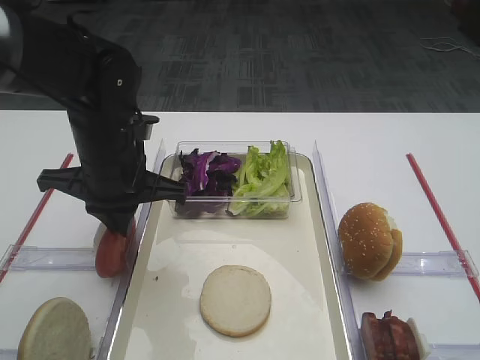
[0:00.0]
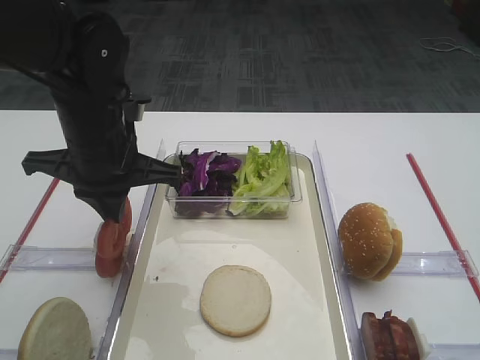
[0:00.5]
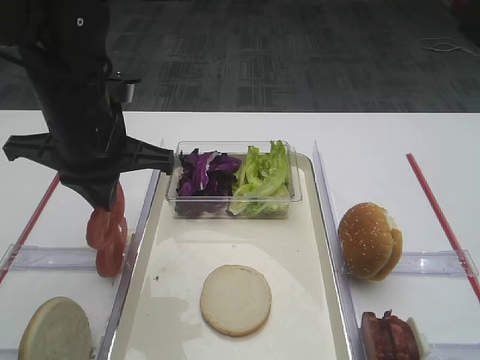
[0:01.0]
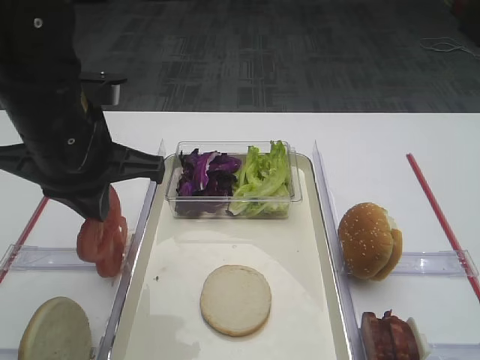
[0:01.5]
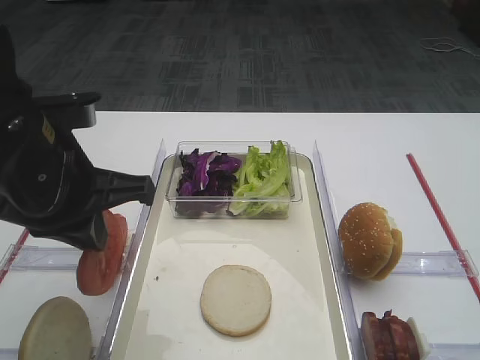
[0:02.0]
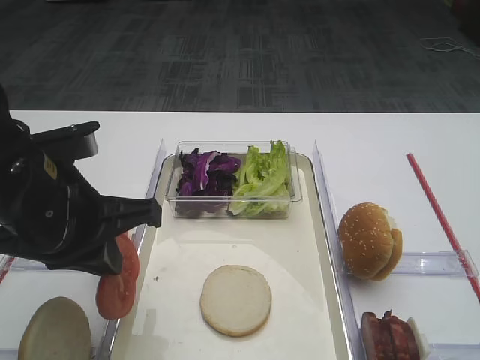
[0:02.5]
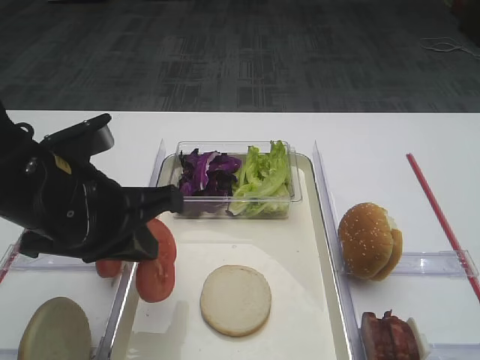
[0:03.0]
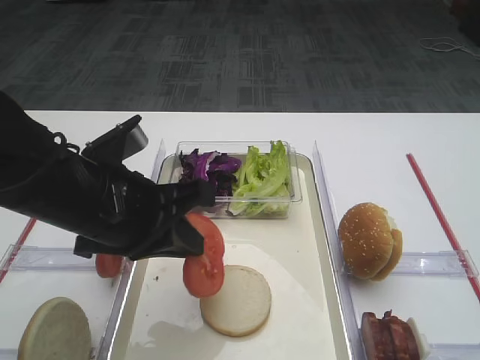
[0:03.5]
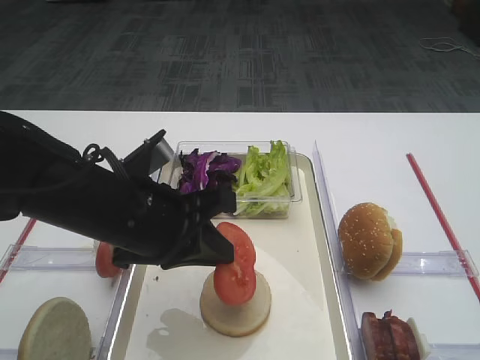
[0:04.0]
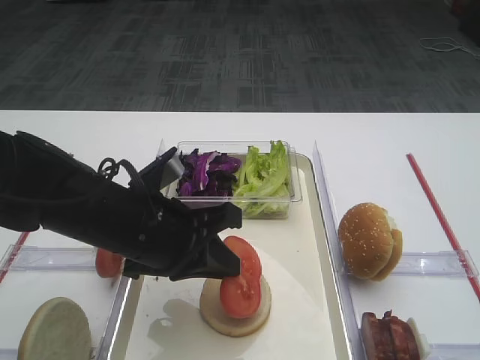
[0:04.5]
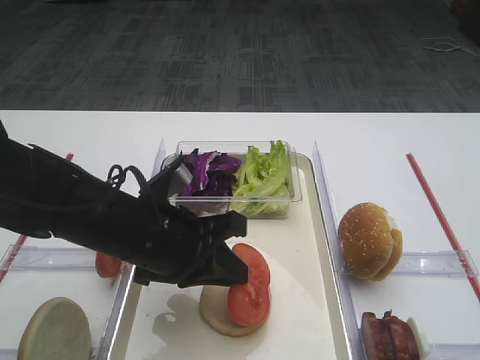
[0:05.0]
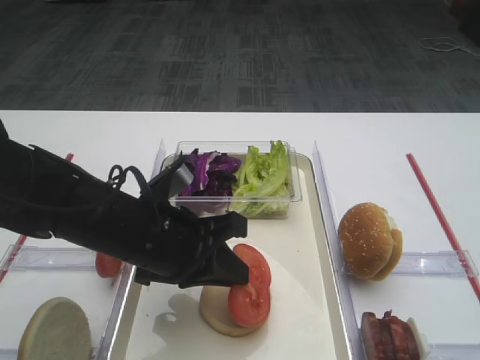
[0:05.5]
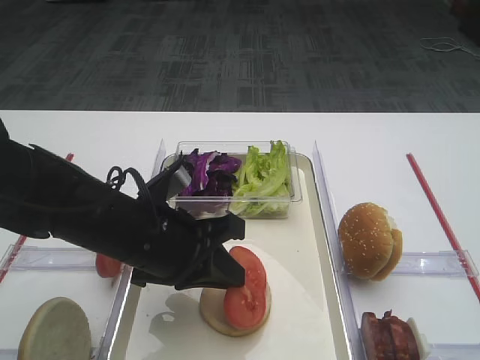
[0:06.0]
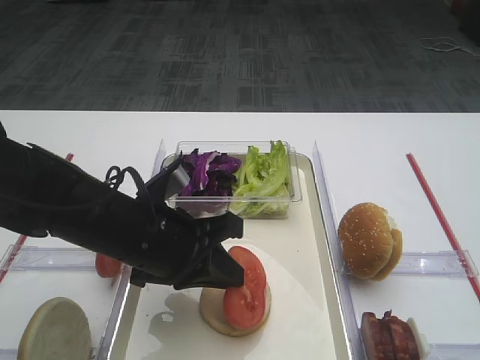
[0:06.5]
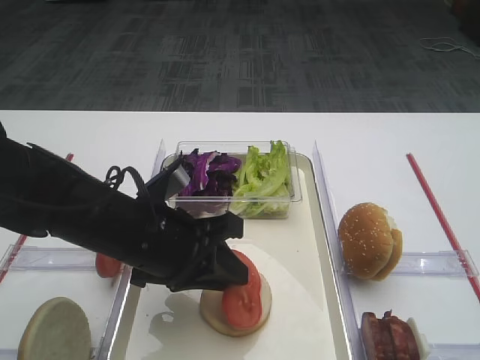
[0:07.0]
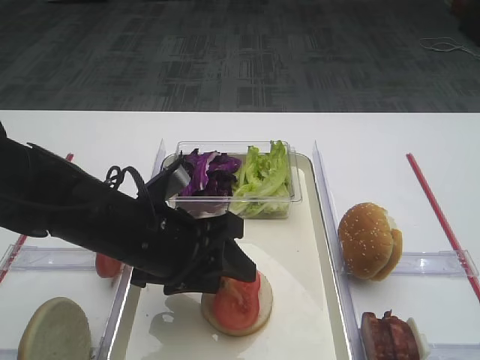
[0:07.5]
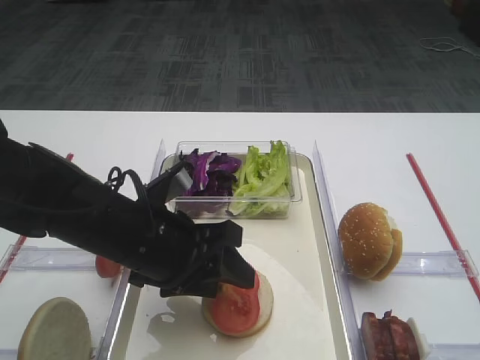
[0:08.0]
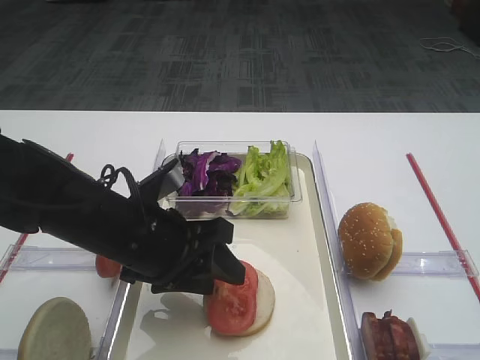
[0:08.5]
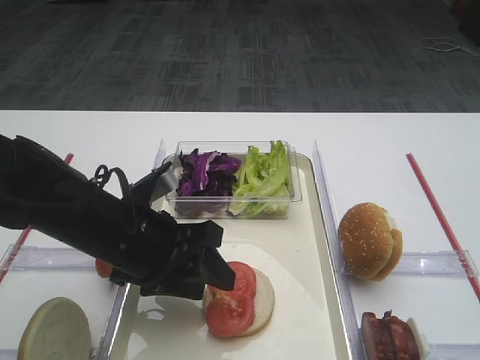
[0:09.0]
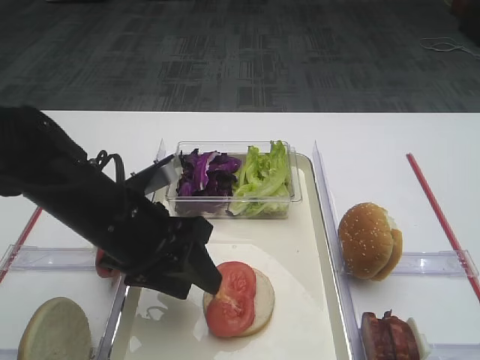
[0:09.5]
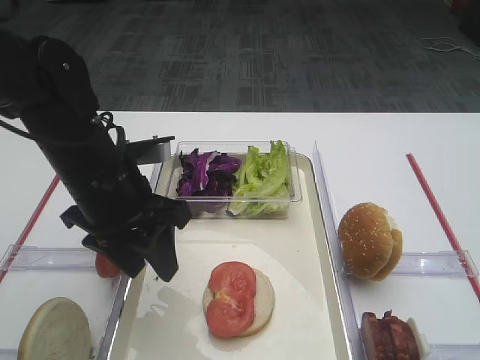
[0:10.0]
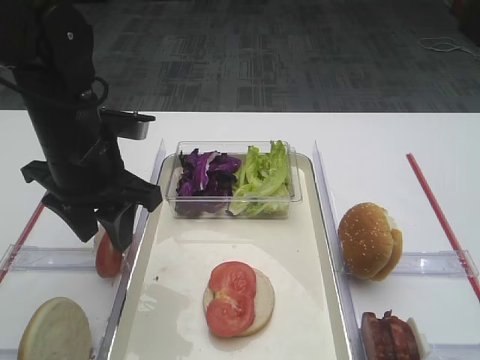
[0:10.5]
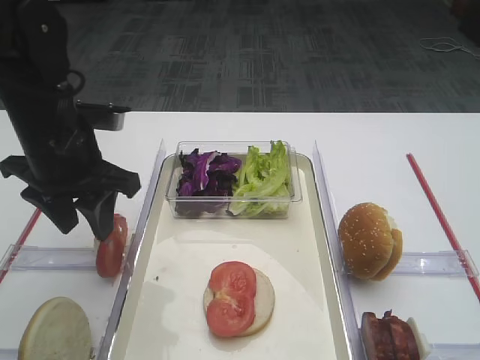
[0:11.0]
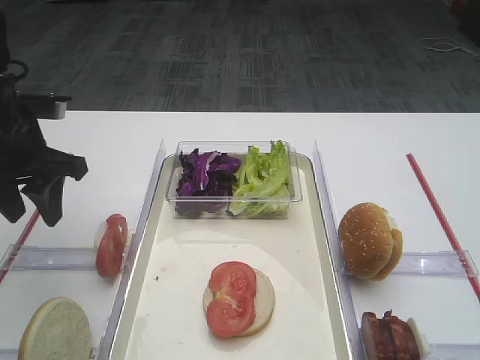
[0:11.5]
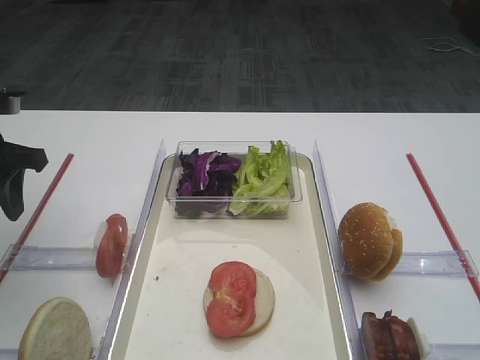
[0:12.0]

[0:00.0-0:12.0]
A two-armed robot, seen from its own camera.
Step, 0:01.5 to 0:09.5: Place the tomato slice on the bread slice with the left gripper.
0:00.0 to 0:02.0: The left gripper moves backward and upward, roughly 10 cm.
0:02.0 to 0:04.0: The left gripper goes about 10 cm downward and to the right.
0:04.0 to 0:06.0: There are only small adjustments of the grippers.
0:06.0 to 0:08.0: The left gripper opens up.
0:08.0 to 0:10.0: The left gripper shifts by approximately 10 cm.
0:10.0 to 0:12.0: The left gripper heads to the left, covering roughly 15 cm.

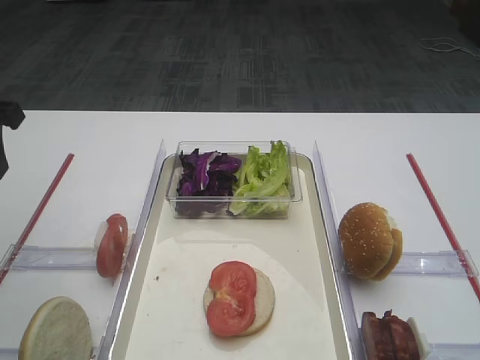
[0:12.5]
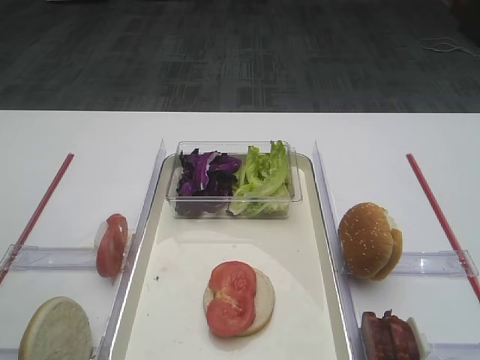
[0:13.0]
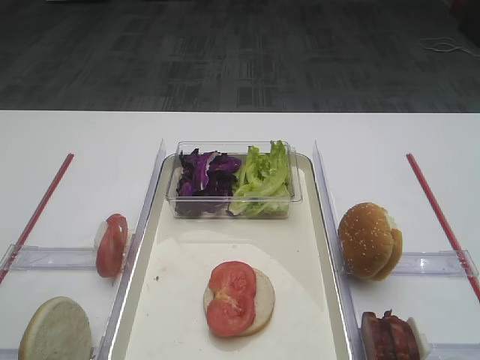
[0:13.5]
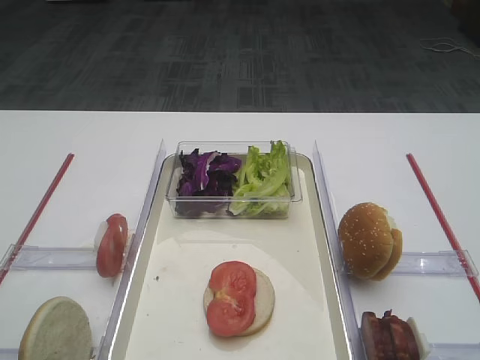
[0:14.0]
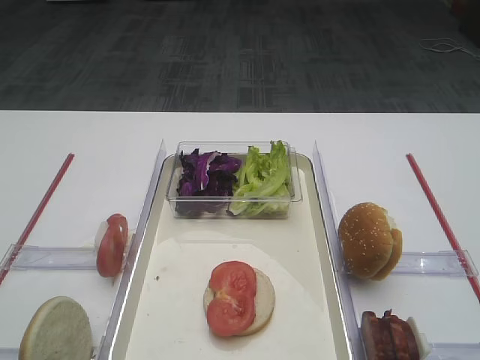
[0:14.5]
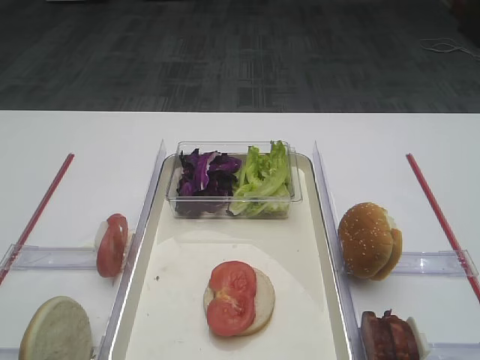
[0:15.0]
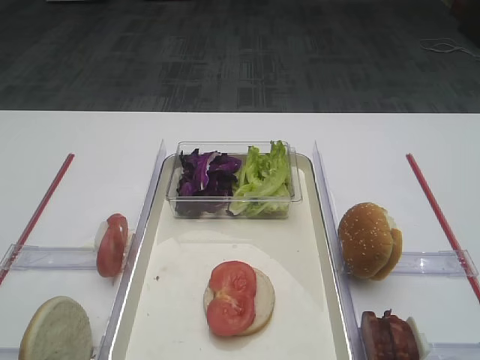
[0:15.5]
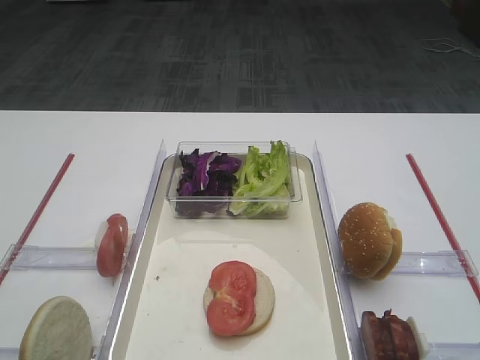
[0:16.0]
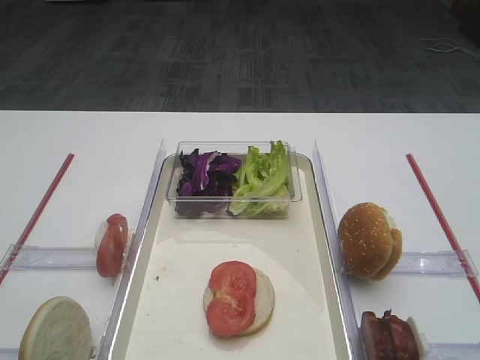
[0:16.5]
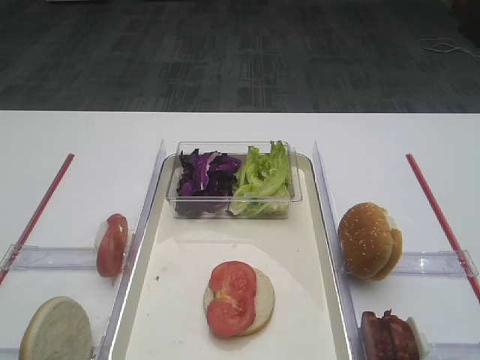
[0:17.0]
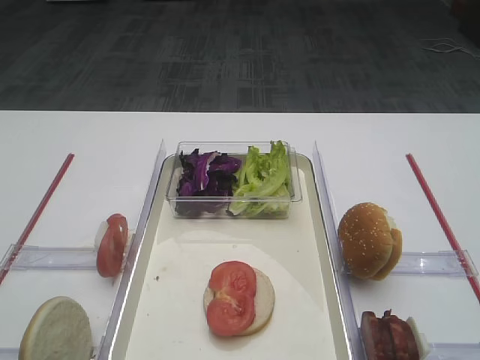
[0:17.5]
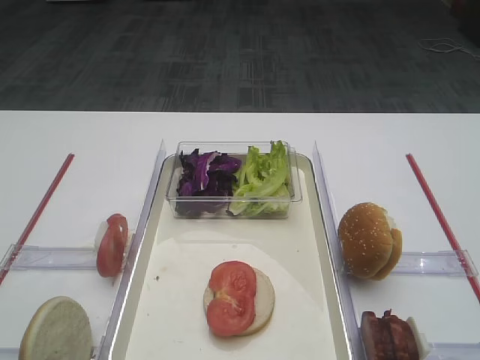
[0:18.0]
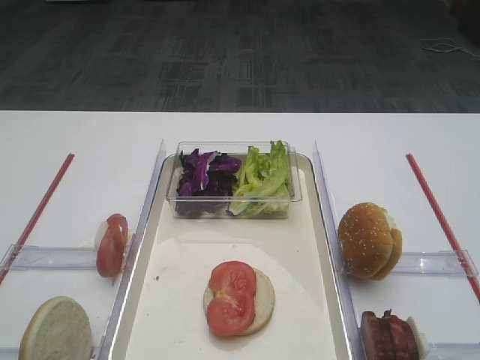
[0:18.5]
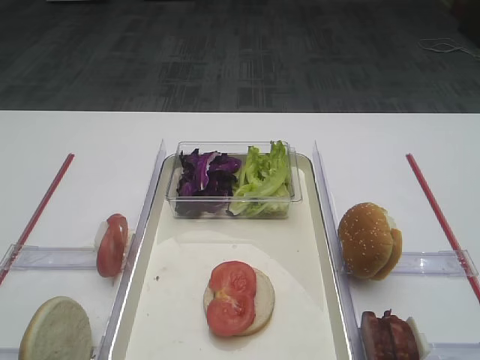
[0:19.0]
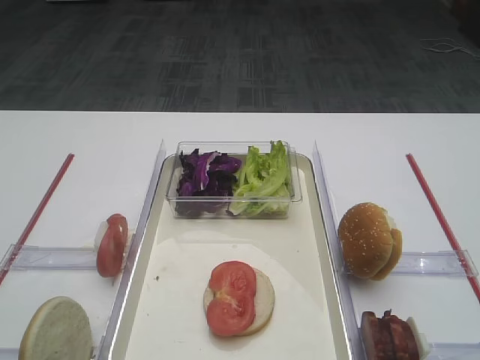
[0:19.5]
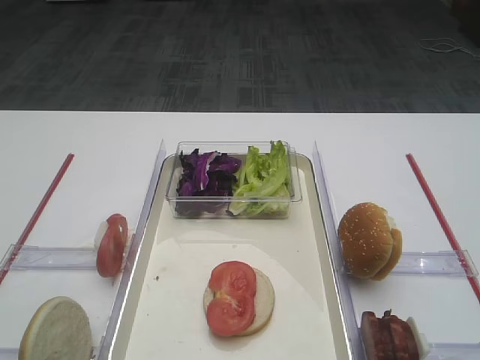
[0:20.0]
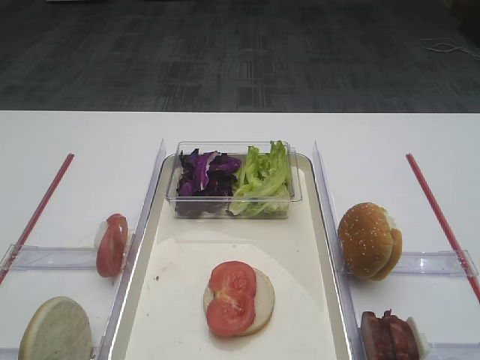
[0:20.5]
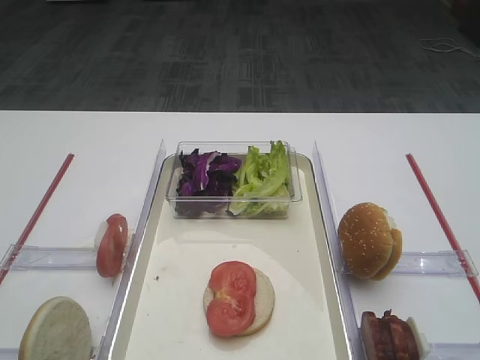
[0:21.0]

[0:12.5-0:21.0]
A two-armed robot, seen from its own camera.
0:12.5 to 0:14.5: The left gripper travels backward by roughly 25 cm.
0:19.0 to 0:21.0: Neither gripper changes place.

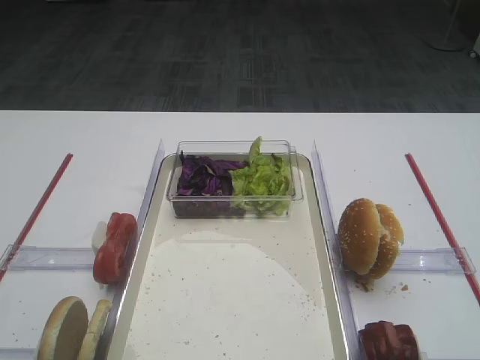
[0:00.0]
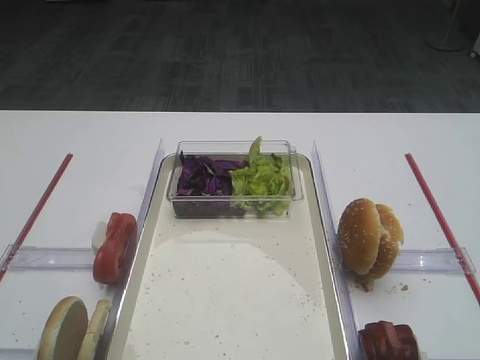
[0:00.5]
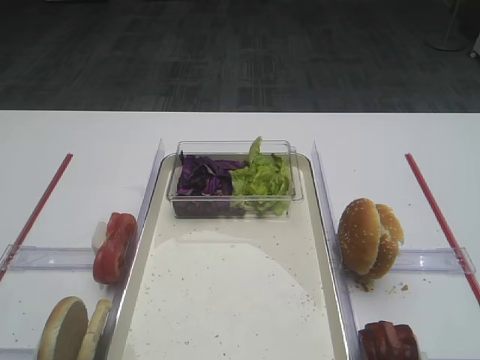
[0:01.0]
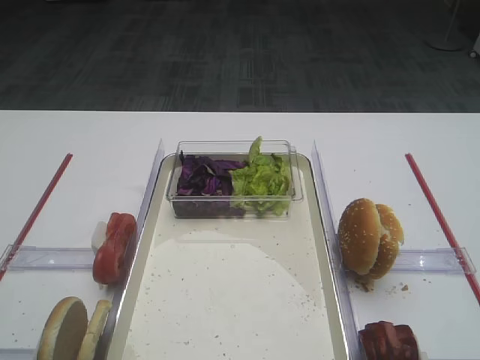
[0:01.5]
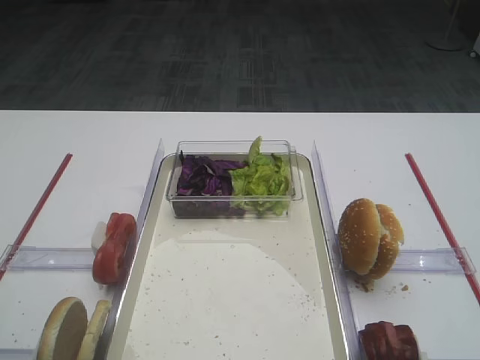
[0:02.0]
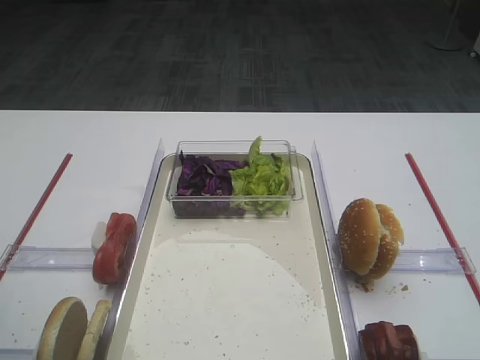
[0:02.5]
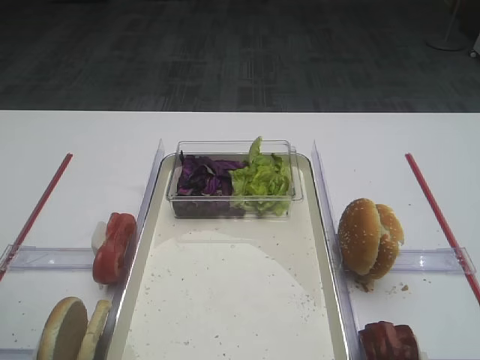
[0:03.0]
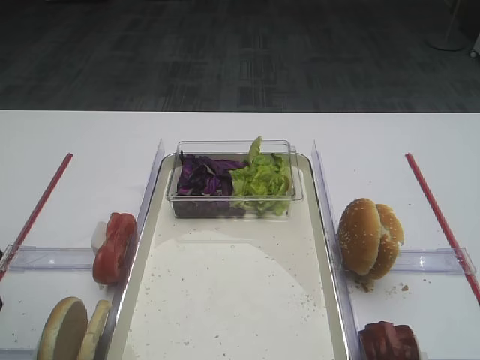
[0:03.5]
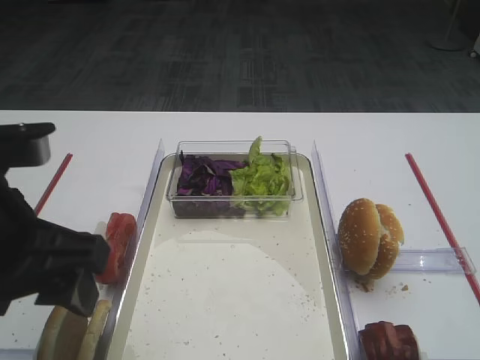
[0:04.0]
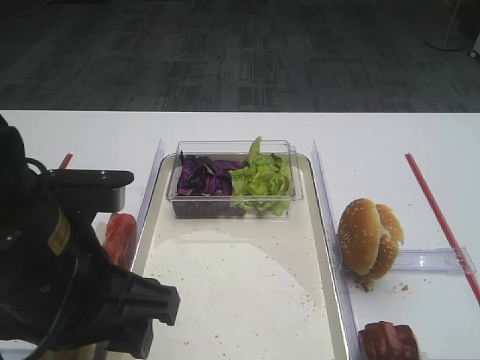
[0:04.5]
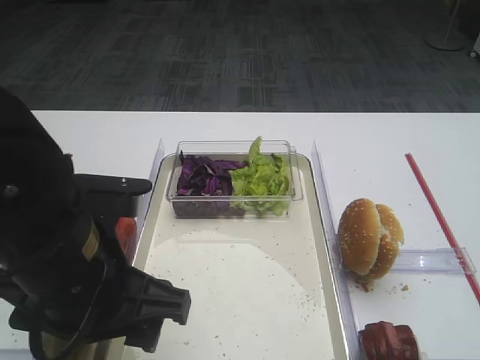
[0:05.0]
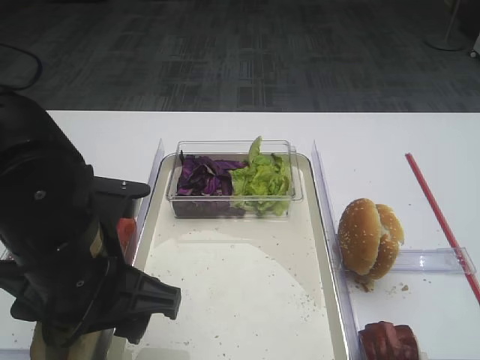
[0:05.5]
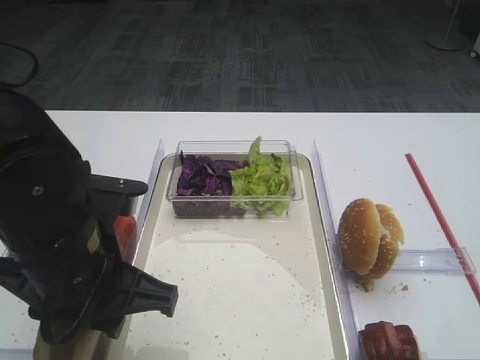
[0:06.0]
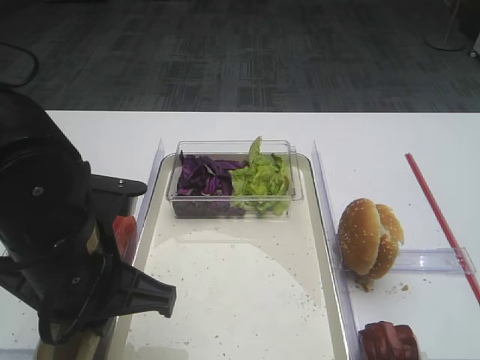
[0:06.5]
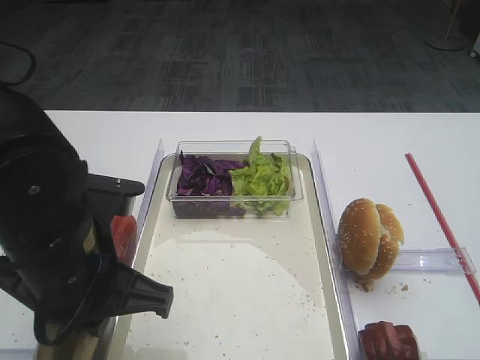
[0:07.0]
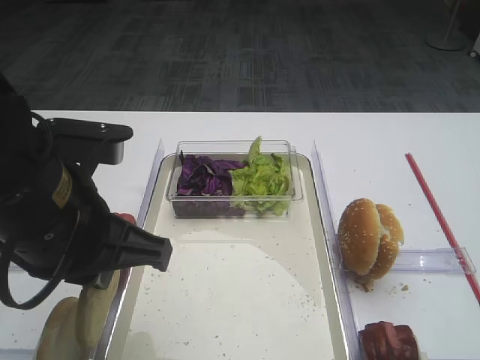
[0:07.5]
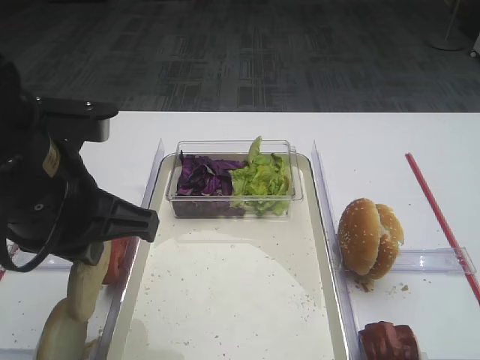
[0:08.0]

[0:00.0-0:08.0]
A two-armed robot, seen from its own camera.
Step, 0:00.0 to 0:07.5: Pick up the bread slice with the left gripper.
0:02.0 to 0:04.0: The left gripper goes roughly 10 cm to the right.
0:04.0 to 0:06.0: The left gripper travels downward and to the right by about 10 cm, and closes up.
0:06.0 to 0:08.0: The left gripper moves upward, approximately 5 cm, and closes its fingers.
